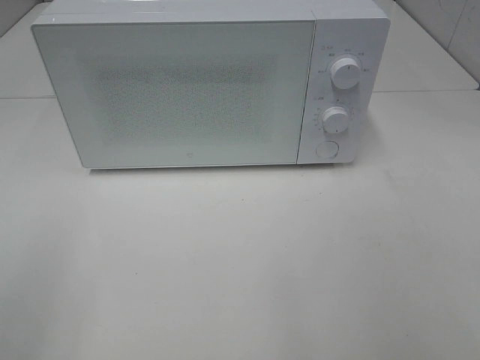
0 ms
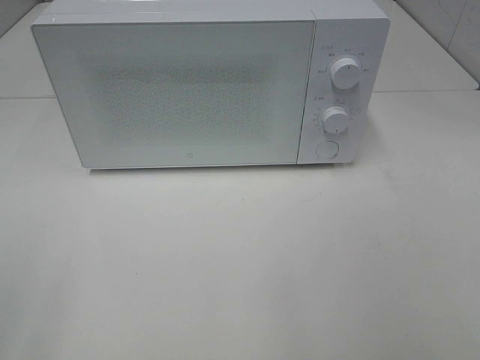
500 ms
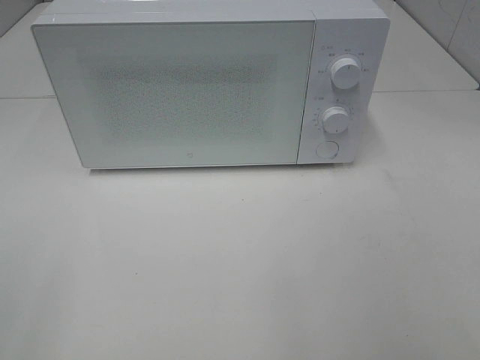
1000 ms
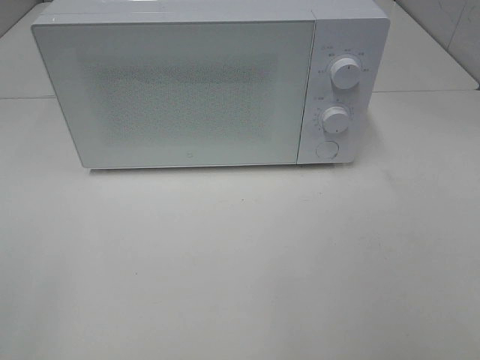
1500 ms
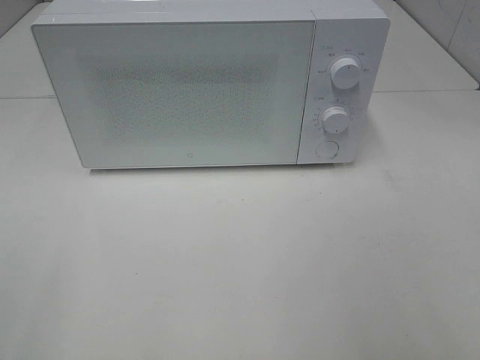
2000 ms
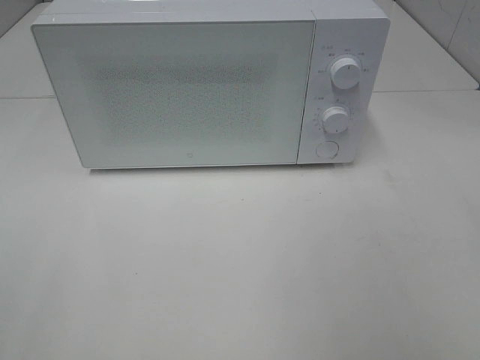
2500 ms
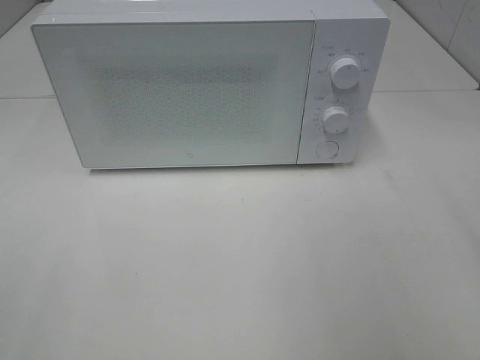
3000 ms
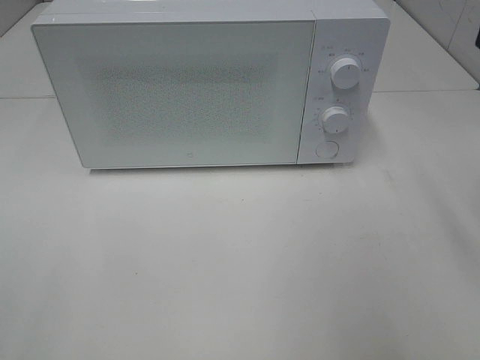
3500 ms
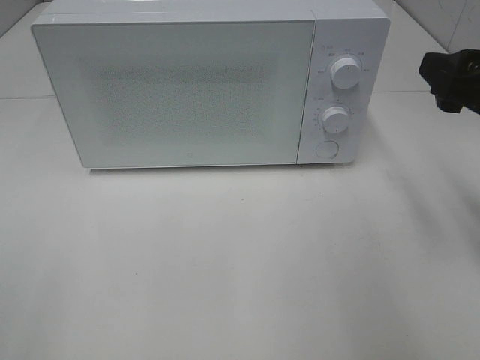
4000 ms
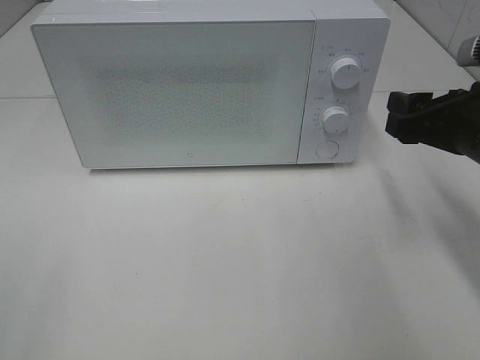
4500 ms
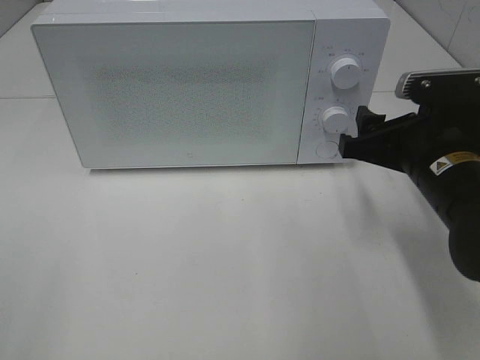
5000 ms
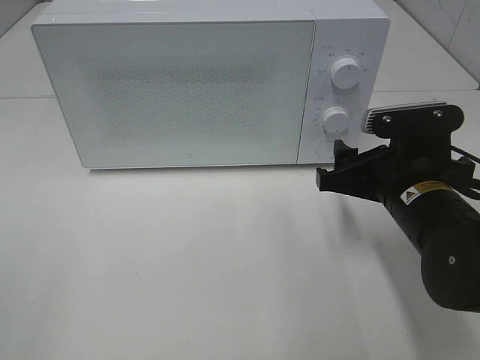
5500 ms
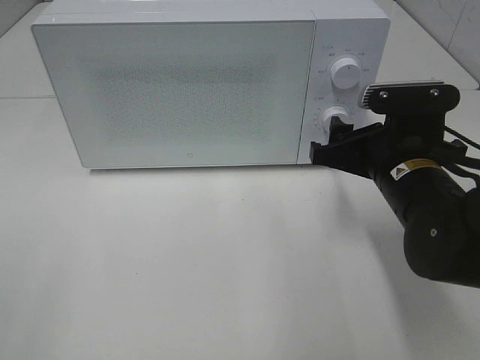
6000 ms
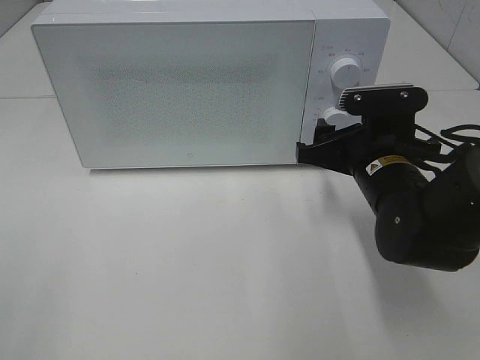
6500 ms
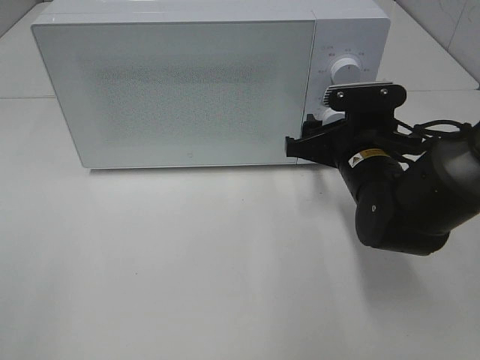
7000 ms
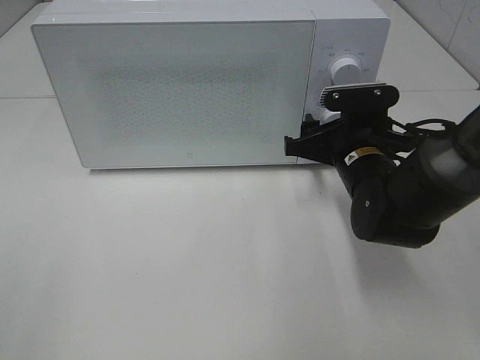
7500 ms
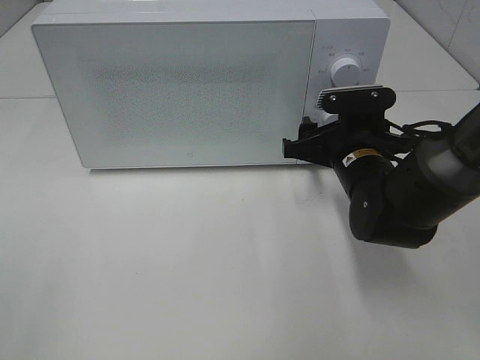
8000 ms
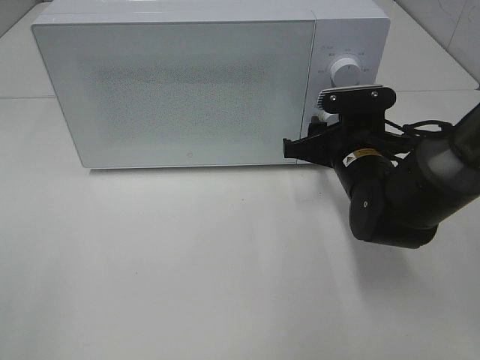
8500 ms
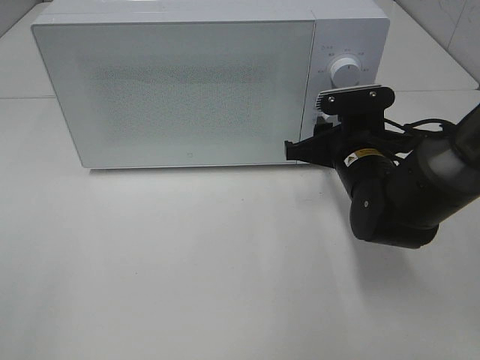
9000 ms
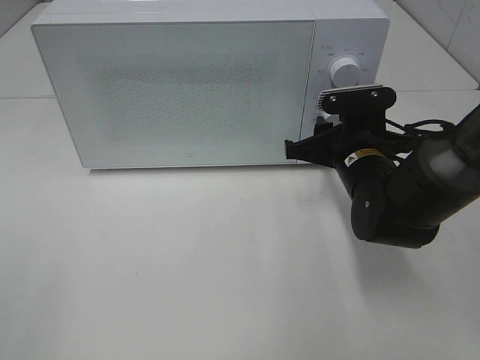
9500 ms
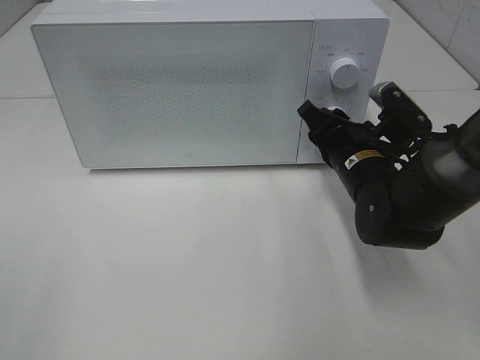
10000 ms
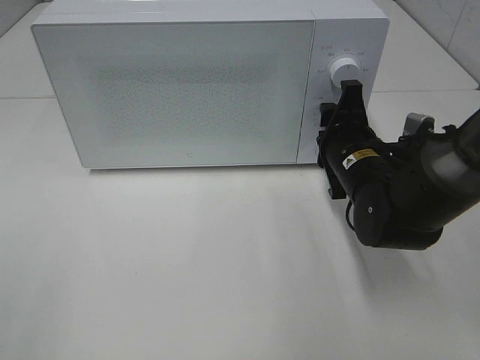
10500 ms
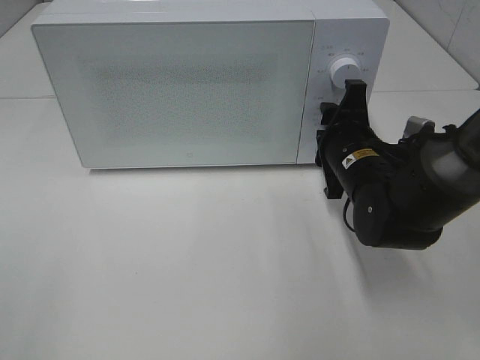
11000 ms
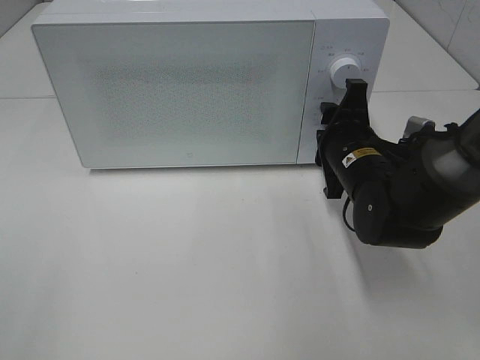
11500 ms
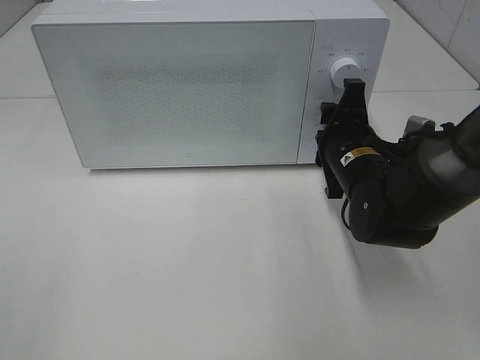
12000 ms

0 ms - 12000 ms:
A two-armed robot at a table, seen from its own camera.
Task of the whole recording: Heat the burger.
2000 ms - 4000 ms: The right gripper travels forward by some 20 cm.
4000 ms - 6000 ms: The right gripper is displaced downward and to the left by approximately 15 cm.
6000 ms - 8000 ms: The right gripper heads forward, covering about 5 cm.

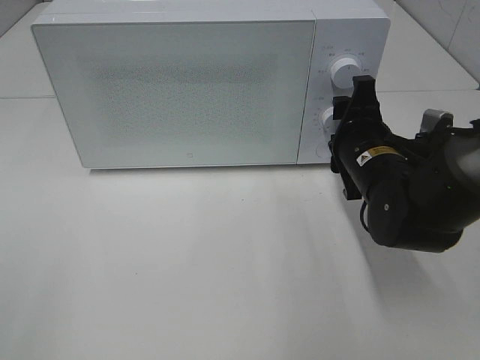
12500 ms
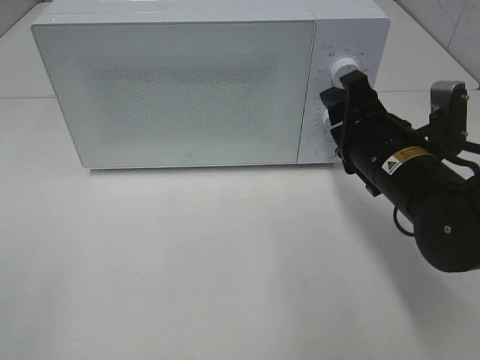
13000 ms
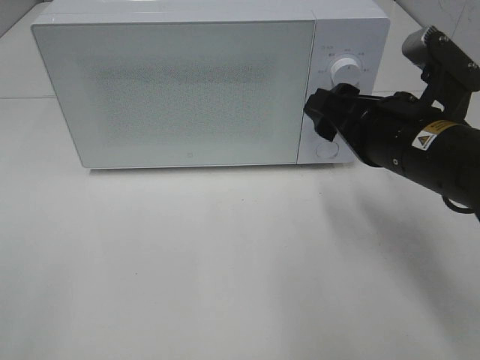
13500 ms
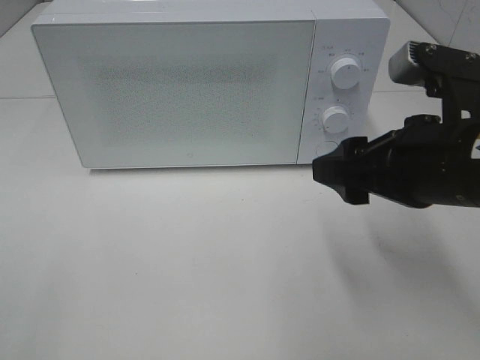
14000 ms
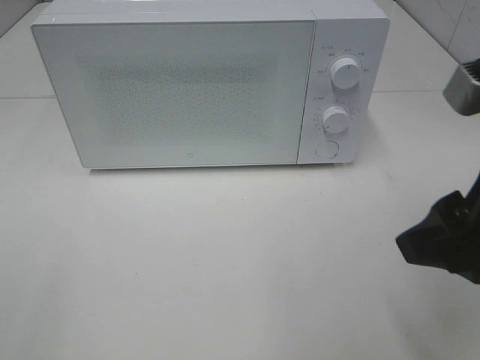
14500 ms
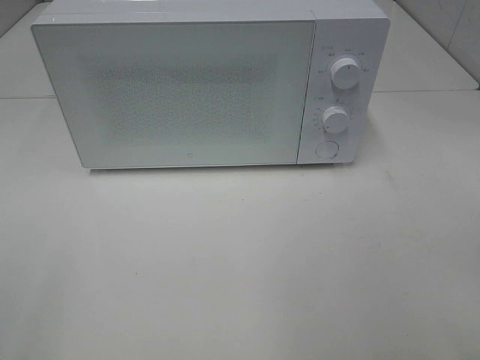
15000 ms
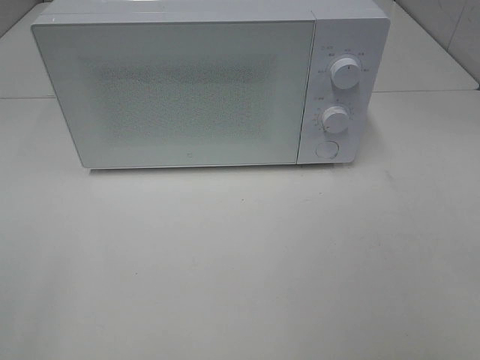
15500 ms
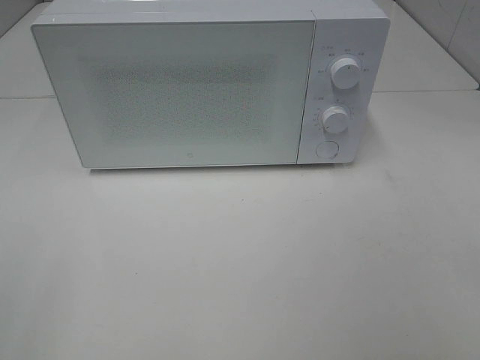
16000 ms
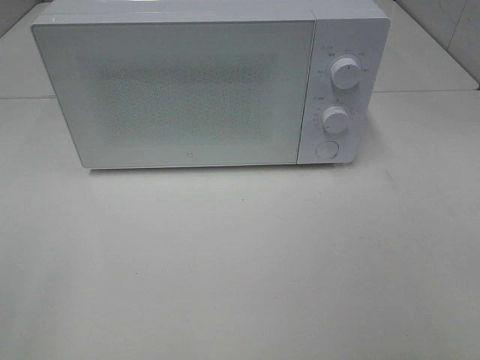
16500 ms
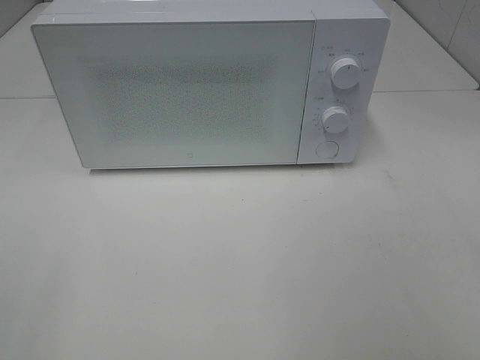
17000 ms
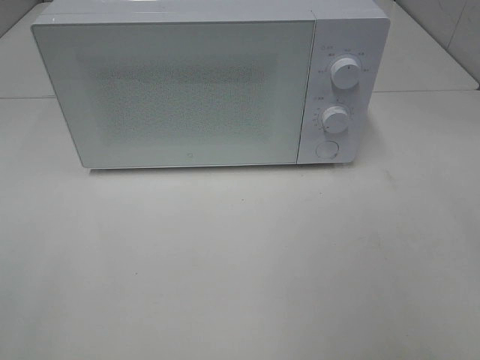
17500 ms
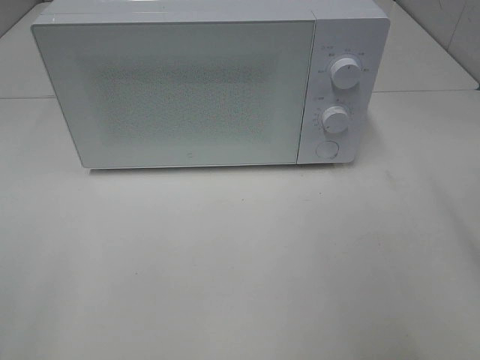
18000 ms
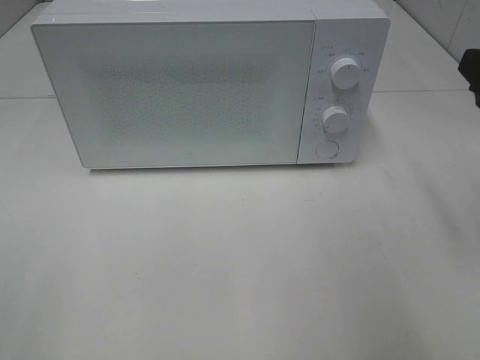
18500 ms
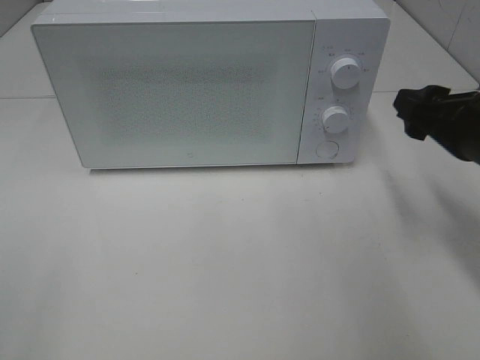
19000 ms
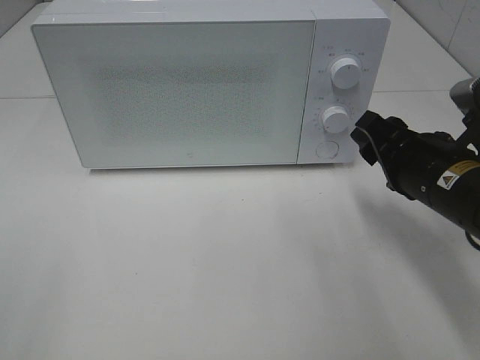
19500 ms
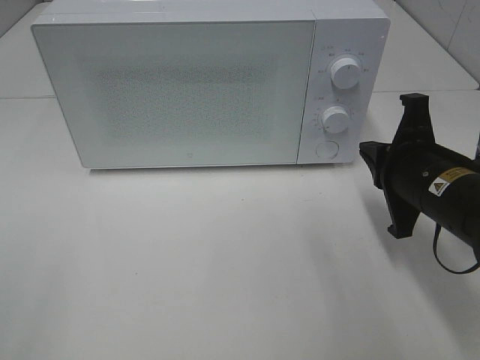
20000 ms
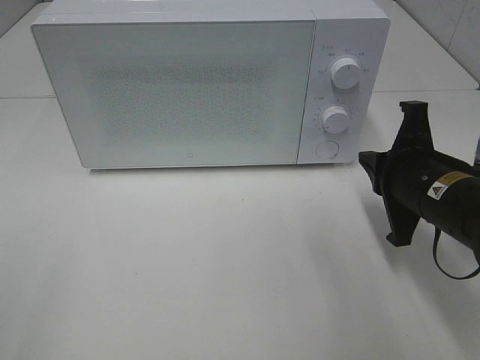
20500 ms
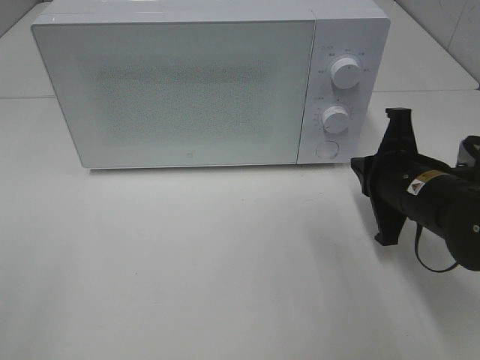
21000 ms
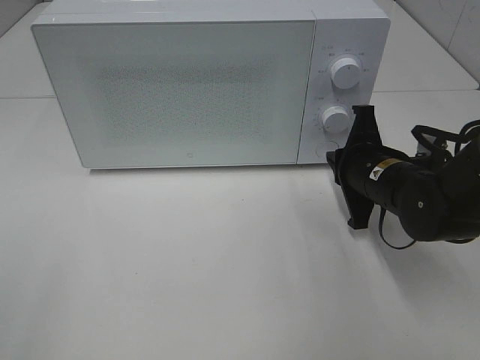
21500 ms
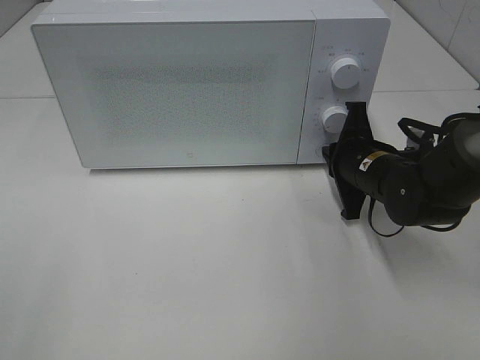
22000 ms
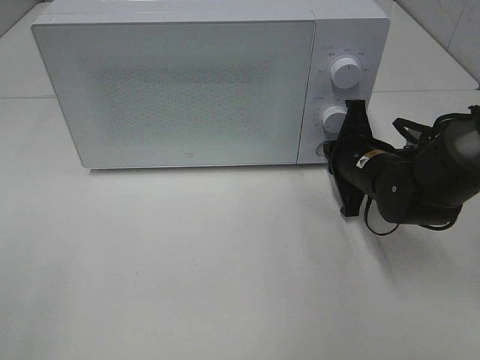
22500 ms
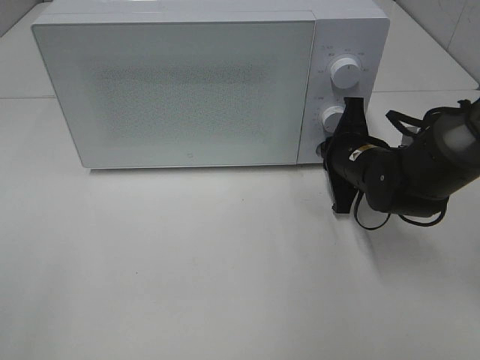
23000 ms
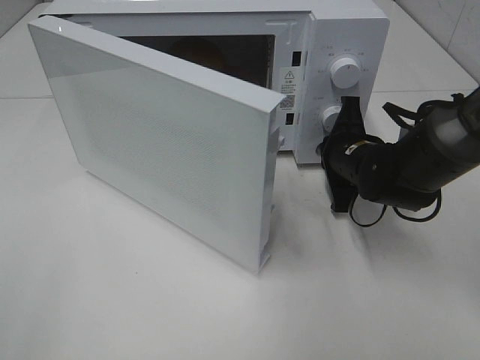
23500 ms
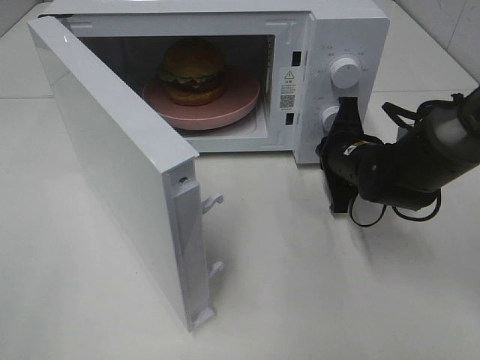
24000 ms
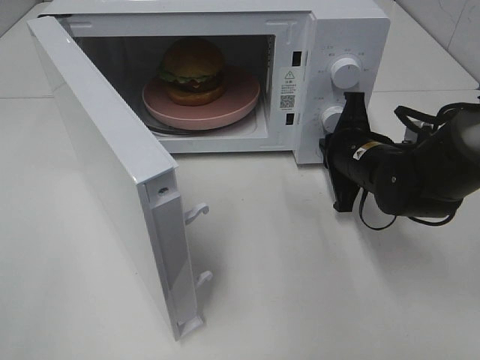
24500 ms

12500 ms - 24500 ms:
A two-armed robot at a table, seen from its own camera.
Task of the whole recording: Heat the burger.
Step, 12500 ms - 24500 ms: Right hand: press the switch.
12500 ms - 14500 ms: The right gripper goes about 20 cm backward and upward.
14500 ms - 16500 ms: The right gripper travels backward and to the right by roughly 15 cm.
18500 ms - 20500 ms: The right gripper is displaced downward and to the left by about 15 cm, and closes its fingers.
20500 ms - 22500 ms: The right gripper goes approximately 10 cm forward and downward.

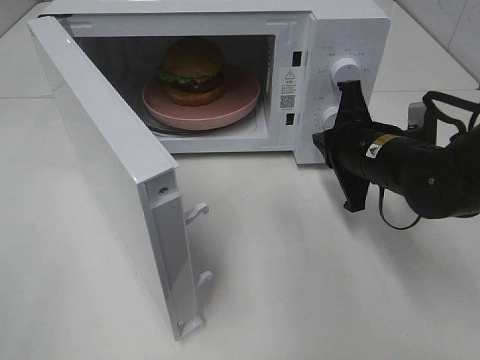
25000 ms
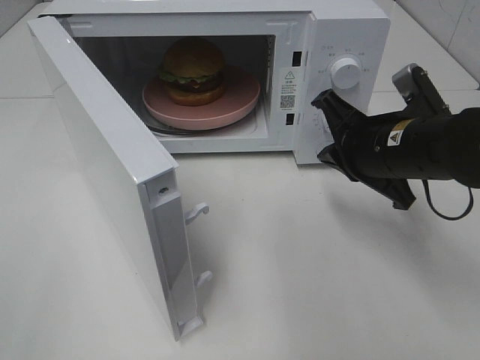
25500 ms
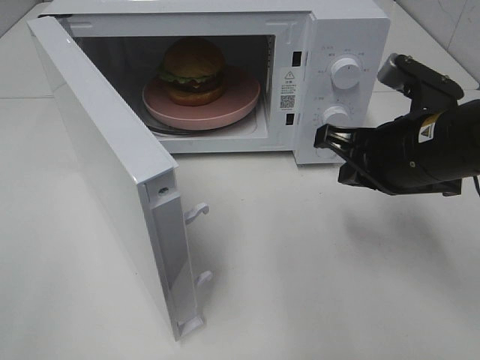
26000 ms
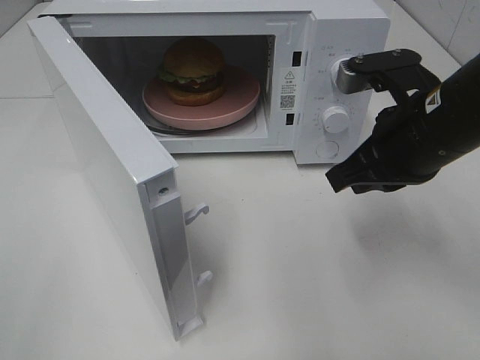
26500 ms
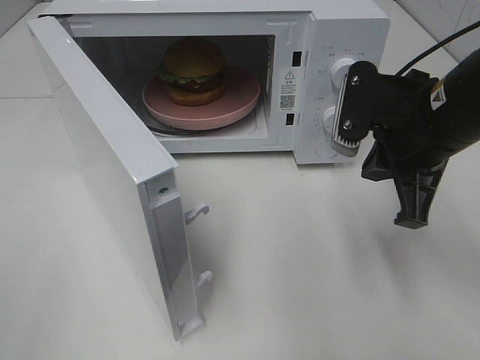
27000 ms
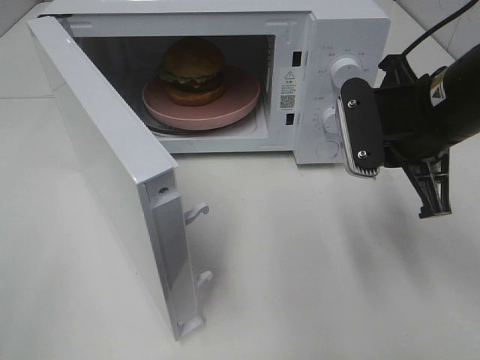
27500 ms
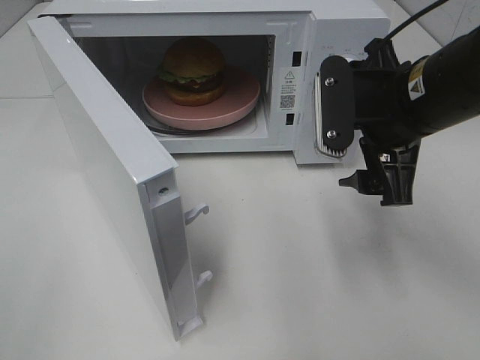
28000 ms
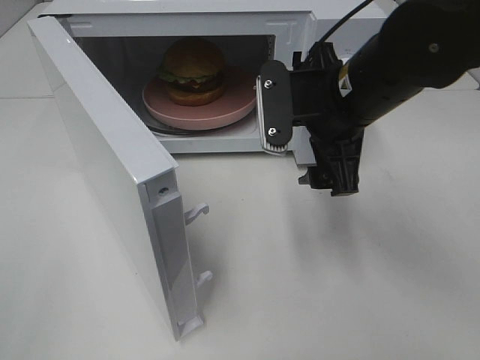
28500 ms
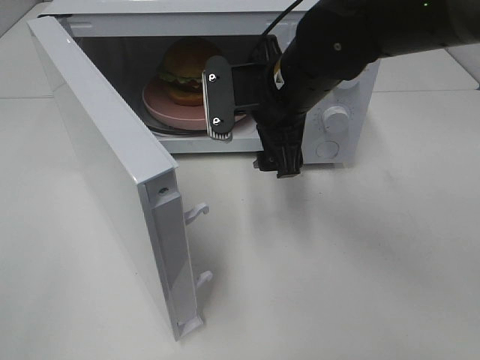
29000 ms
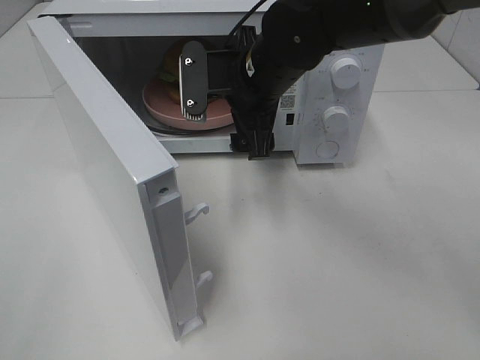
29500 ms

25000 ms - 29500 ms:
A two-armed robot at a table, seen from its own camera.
Task of the whole recording: Heat the burger.
25000 ms - 27000 ms: The right gripper shifts some 10 cm upward.
27000 ms - 29500 ms: The right gripper travels to the left and forward by approximately 20 cm, and opens its fingers.
